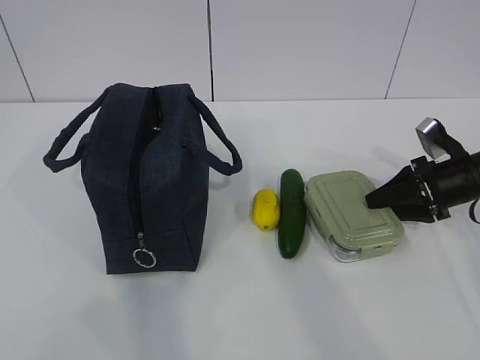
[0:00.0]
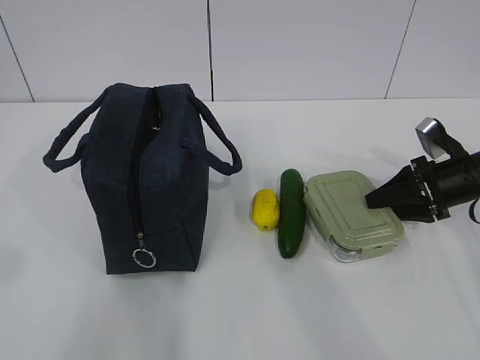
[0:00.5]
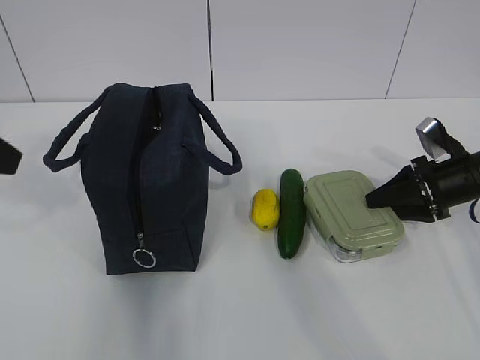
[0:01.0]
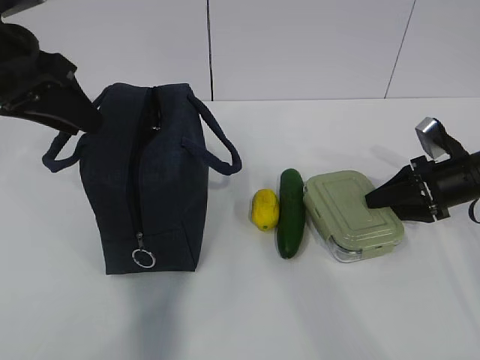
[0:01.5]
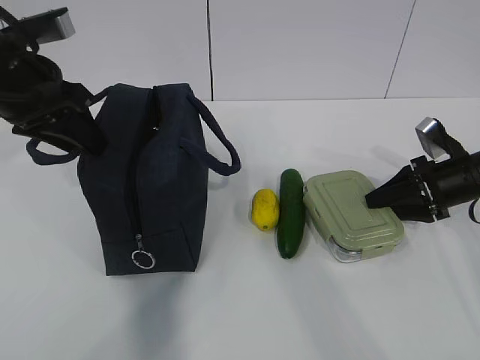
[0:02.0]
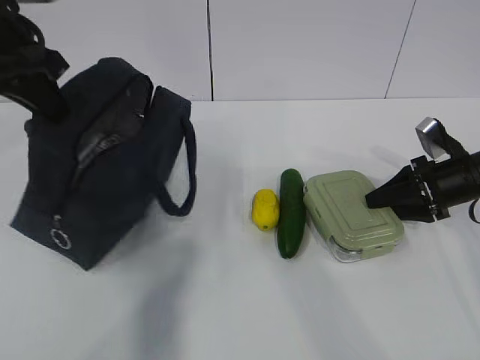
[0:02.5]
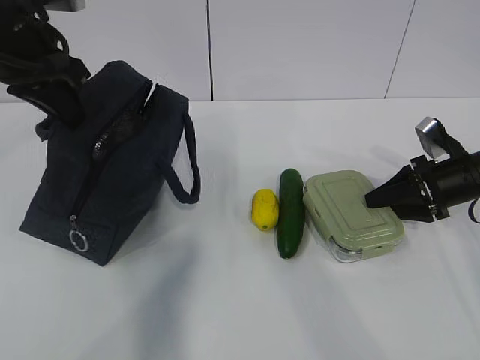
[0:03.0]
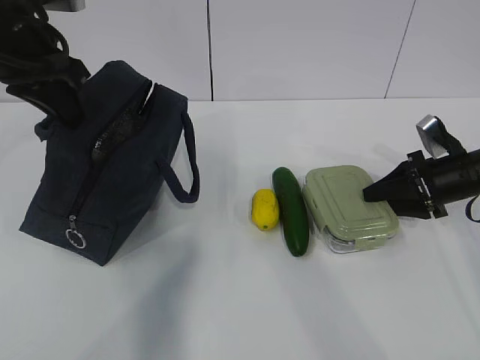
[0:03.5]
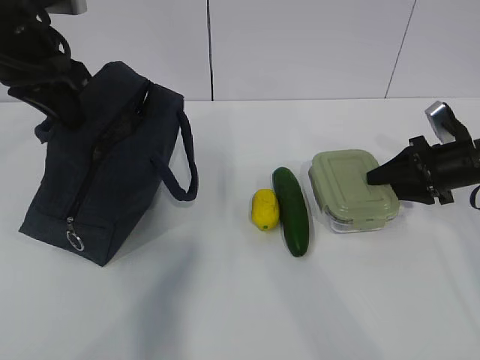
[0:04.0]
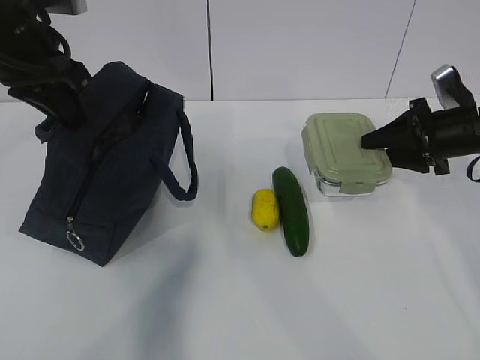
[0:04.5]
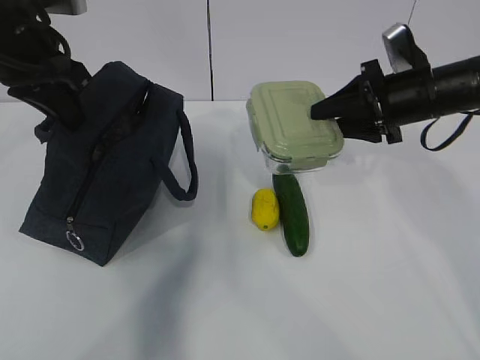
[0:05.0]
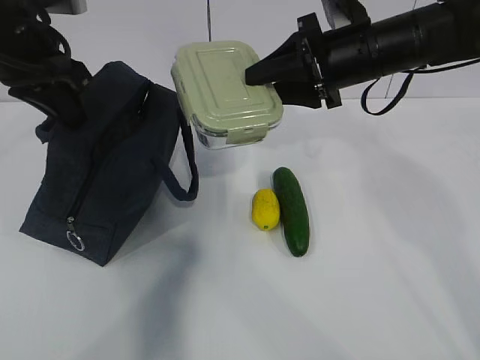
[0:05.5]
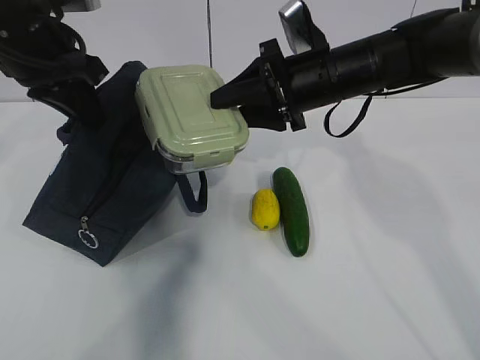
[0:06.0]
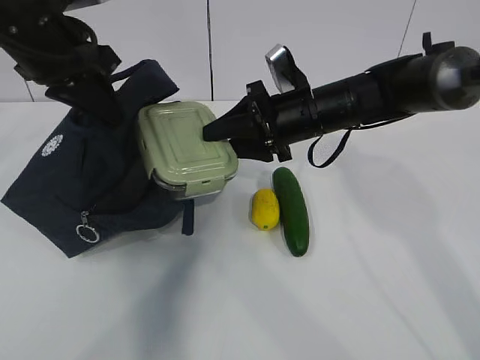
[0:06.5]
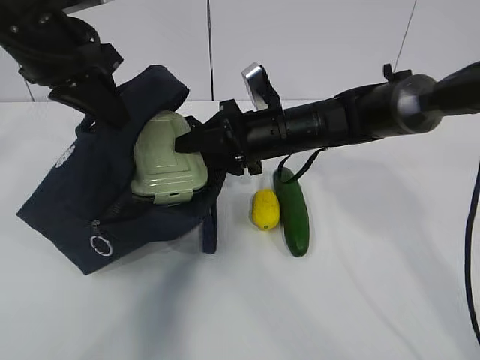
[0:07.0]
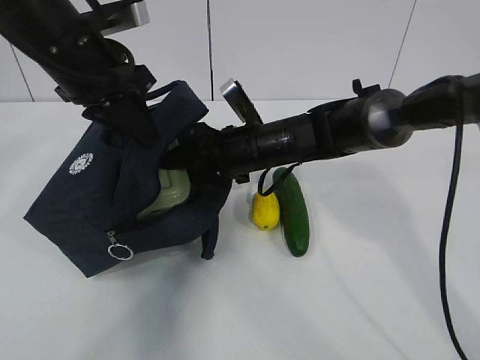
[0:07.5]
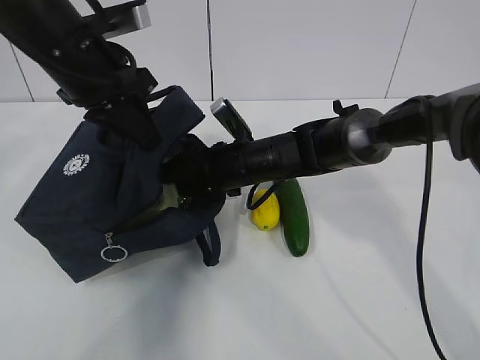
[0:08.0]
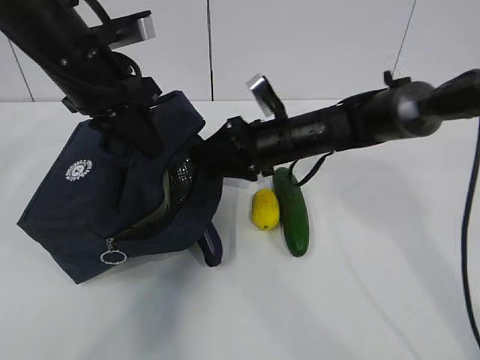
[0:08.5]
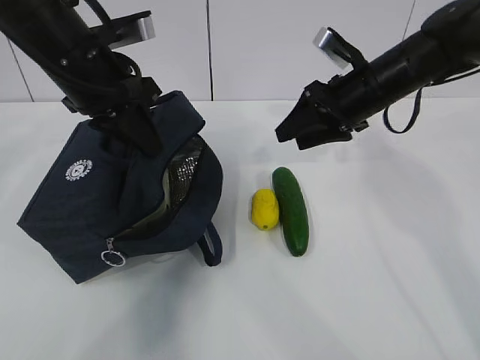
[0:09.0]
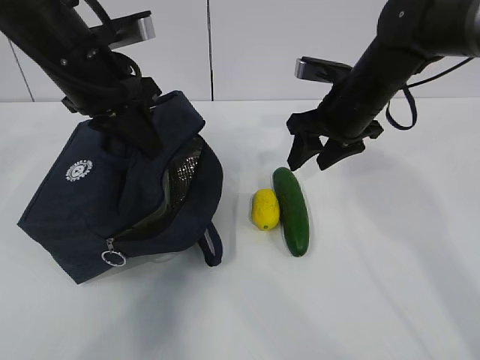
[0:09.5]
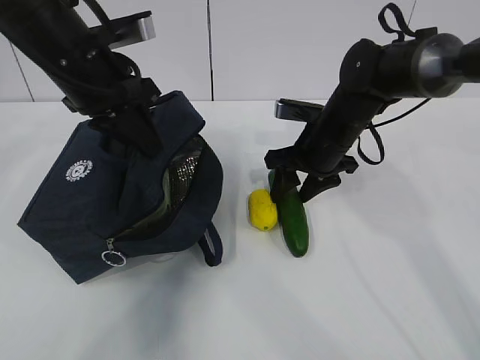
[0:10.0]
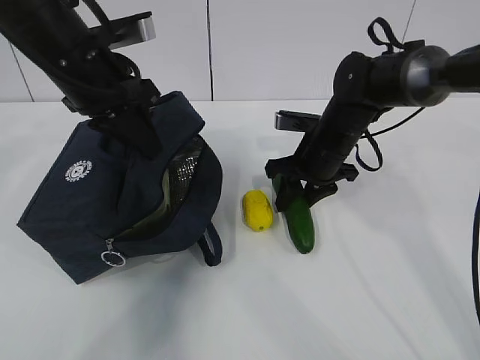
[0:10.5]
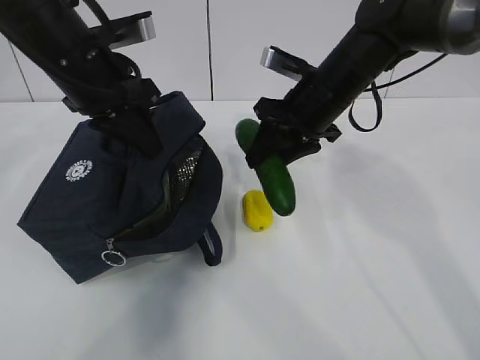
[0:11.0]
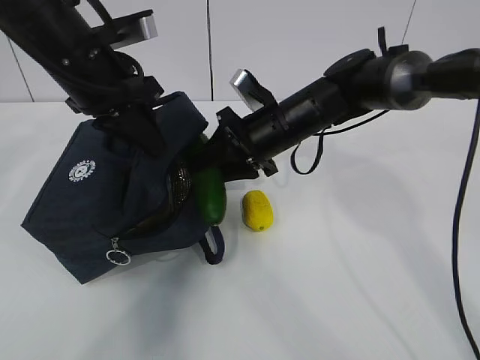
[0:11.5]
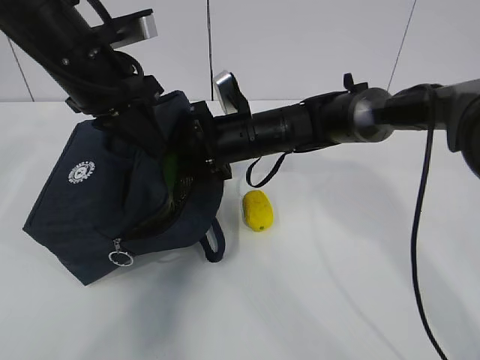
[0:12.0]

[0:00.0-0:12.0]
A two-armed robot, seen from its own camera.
Step, 0:02.0 to 0:03.0: Grab the lunch bag with your left hand.
Step, 0:03.5 to 0:05.0: Place it into the bag with your right hand.
Step, 0:05.5 to 0:06.5: Grab the cucumber with your right hand.
Step, 0:07.5 to 0:08.5: Place it into the bag with your right hand.
Step, 0:09.0 to 0:10.5: Grab the lemon with your right hand.
0:00.0 to 0:02.0: The left gripper shifts about 35 cm forward.
0:02.0 to 0:04.0: The left gripper closes its fingers.
0:04.0 to 0:06.0: The right gripper heads to the left and upward, covering some 25 cm.
0:06.0 to 0:08.0: The right gripper travels downward and to the left by about 15 cm.
0:08.0 to 0:10.0: The right gripper is displaced to the right by about 10 cm.
0:10.0 to 0:12.0: The right gripper moves to the left, about 10 cm.

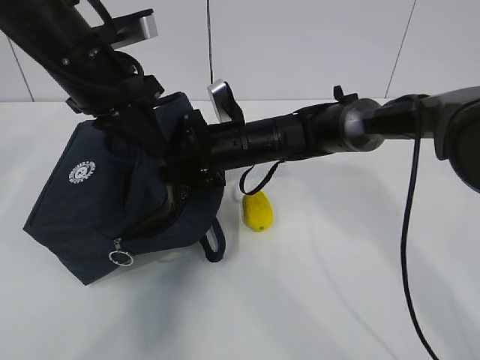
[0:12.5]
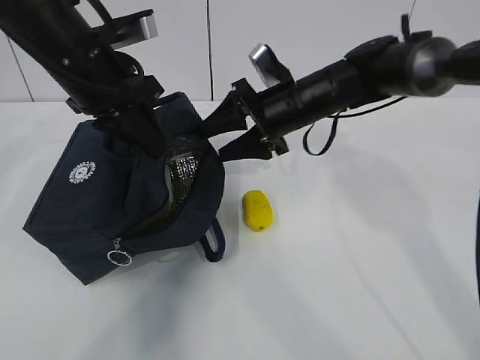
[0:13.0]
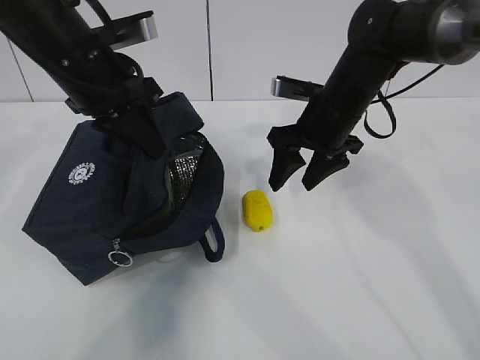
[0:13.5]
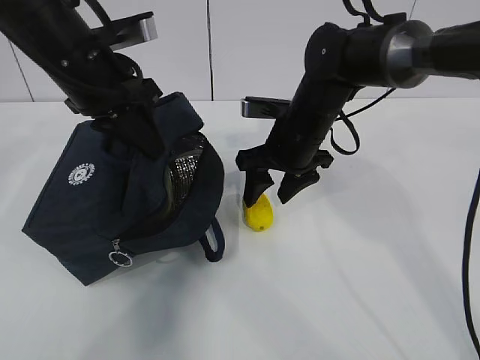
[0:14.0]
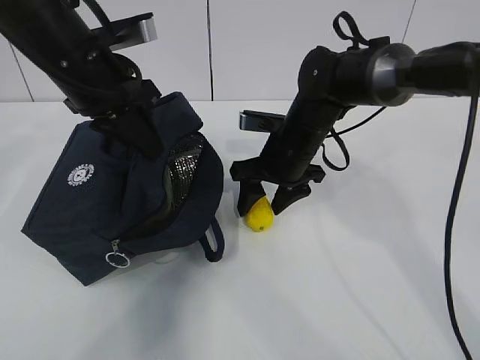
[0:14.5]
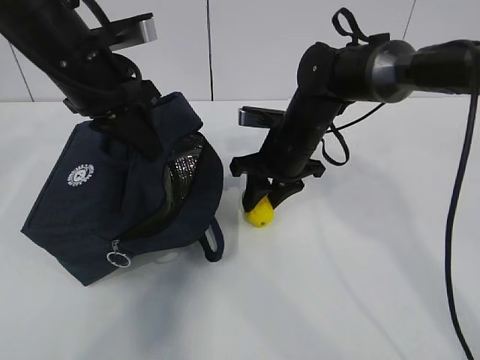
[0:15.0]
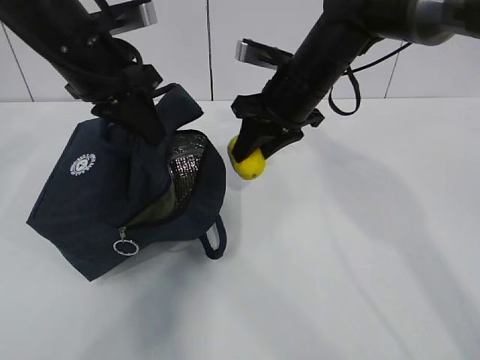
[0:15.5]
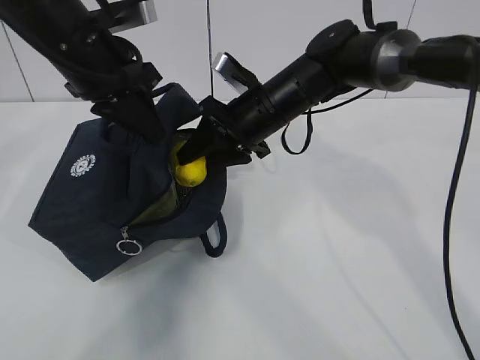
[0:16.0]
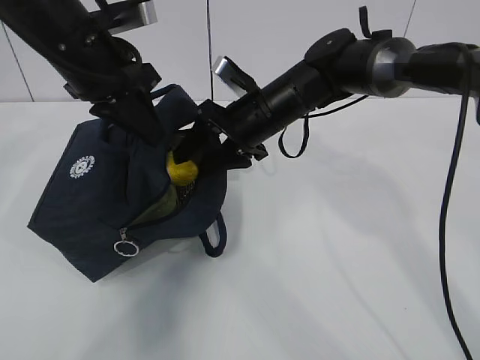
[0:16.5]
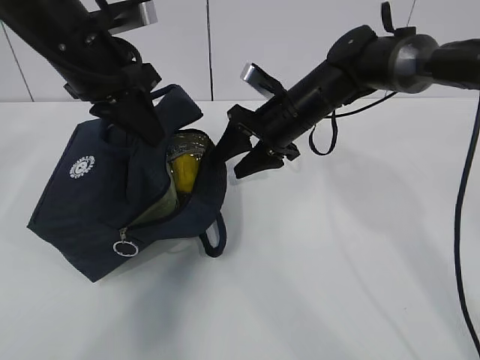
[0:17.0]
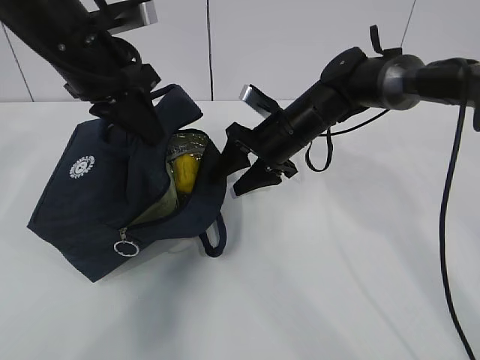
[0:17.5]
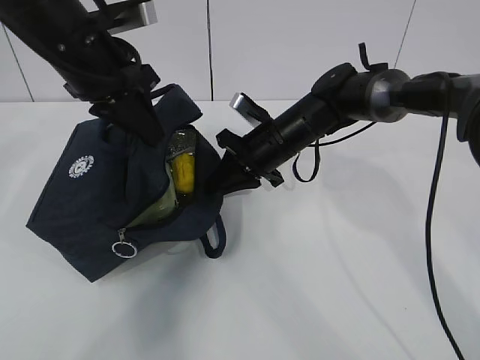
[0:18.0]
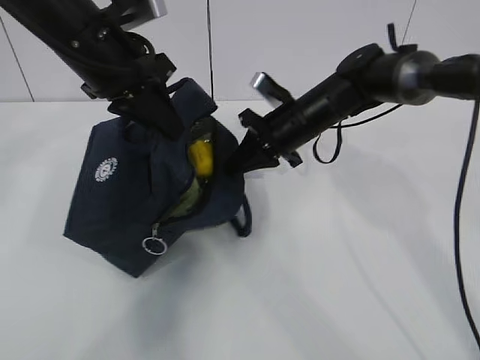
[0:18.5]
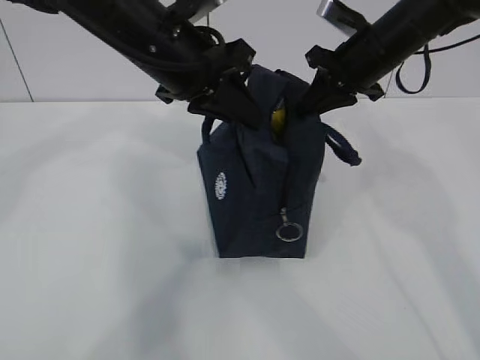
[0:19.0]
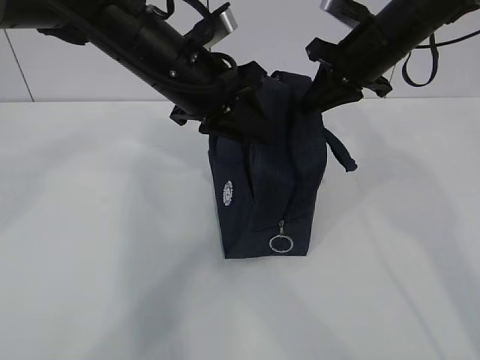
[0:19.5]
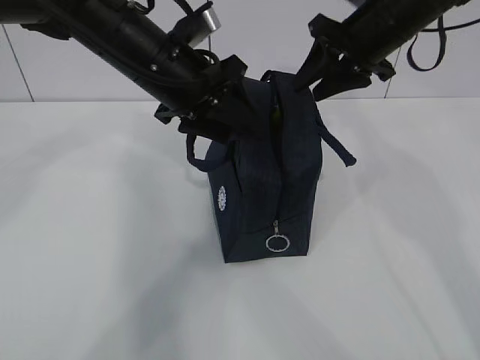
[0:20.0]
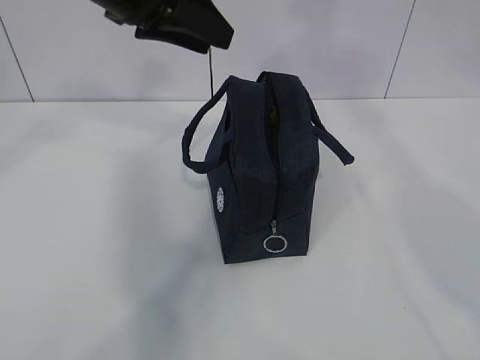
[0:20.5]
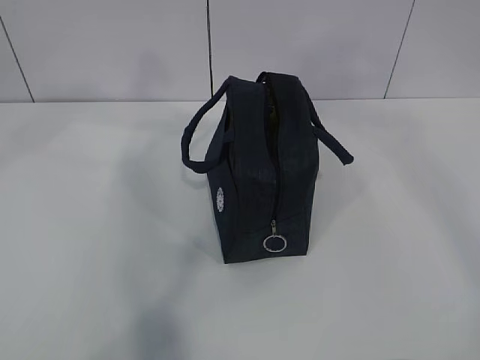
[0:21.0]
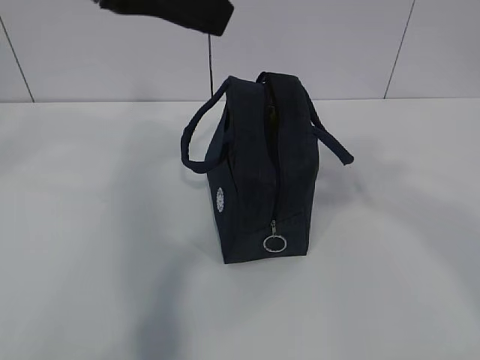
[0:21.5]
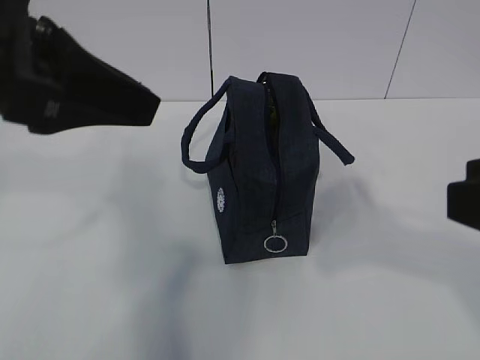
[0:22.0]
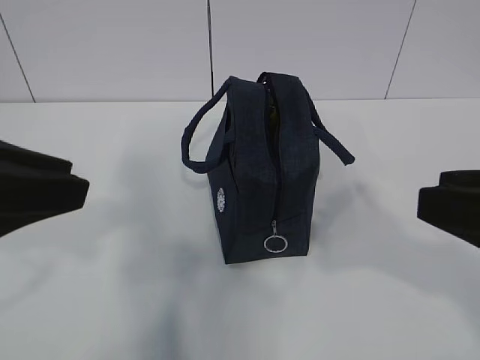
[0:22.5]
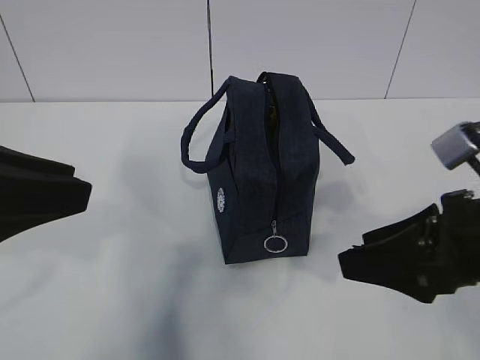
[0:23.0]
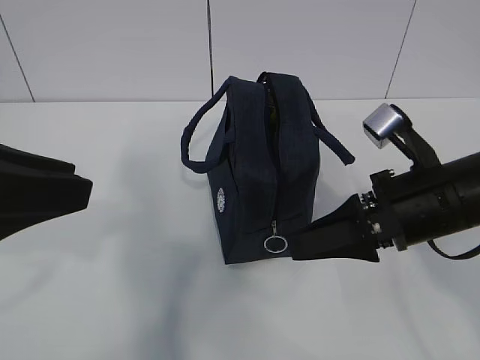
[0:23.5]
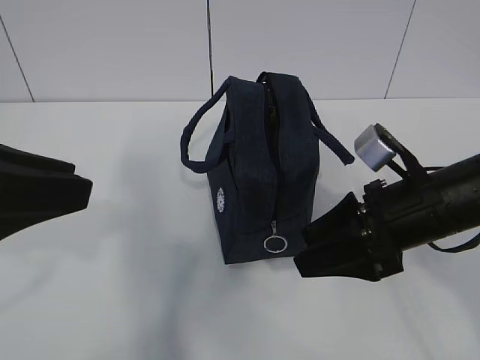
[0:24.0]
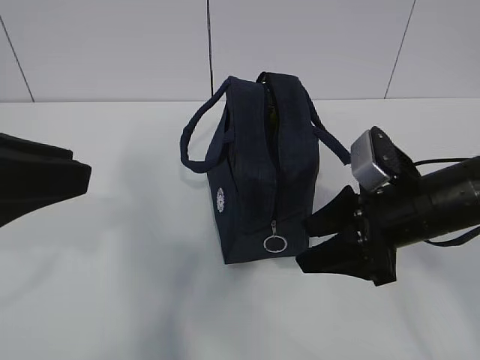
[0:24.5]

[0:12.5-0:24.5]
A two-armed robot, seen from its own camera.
Step, 0:12.5 to 0:13.0: Grab the lunch bag with your right hand.
Step, 0:13.5 to 0:15.0: Stand the lunch bag upright with your right hand.
0:12.5 to 0:14.5: The right gripper shifts some 5 cm to the right.
0:16.5 to 0:18.5: The right gripper shifts roughly 5 cm to the right, and closes its fingers.
0:18.5 to 0:20.5: The right gripper goes some 35 cm upward, and opens. Meanwhile the left gripper is displaced upward by about 5 cm, and opens up.
0:20.5 to 0:22.5: The left gripper moves backward and to the left, some 20 cm. Meanwhile the right gripper travels backward and downward by about 30 cm.
0:22.5 to 0:24.5: The right gripper travels forward and downward by some 20 cm.

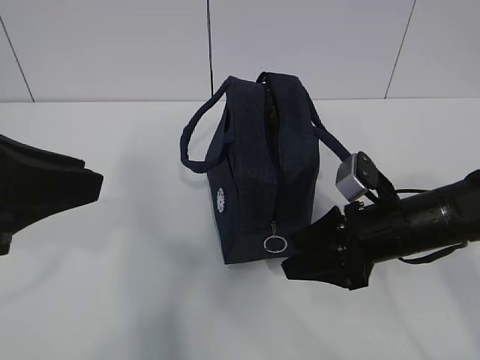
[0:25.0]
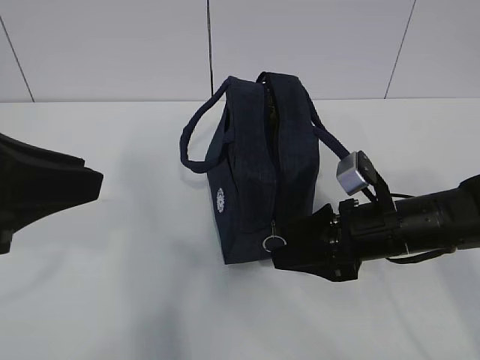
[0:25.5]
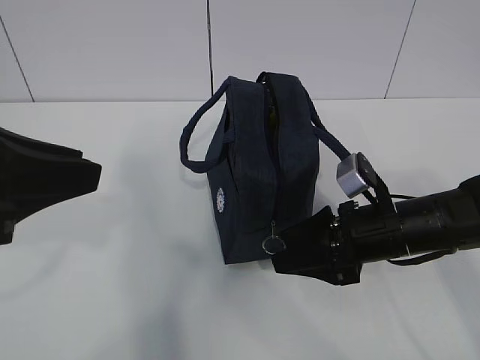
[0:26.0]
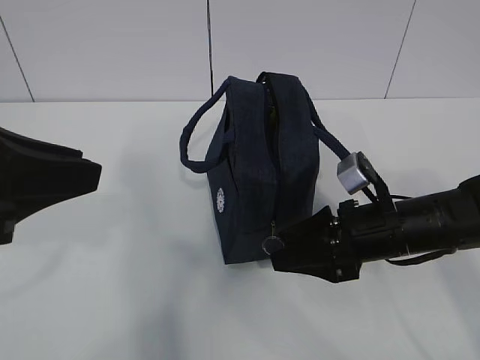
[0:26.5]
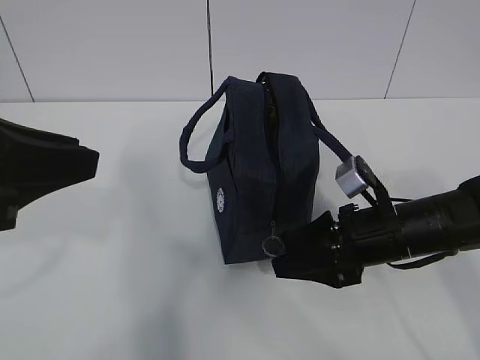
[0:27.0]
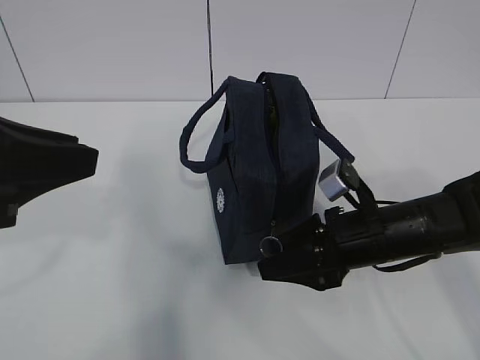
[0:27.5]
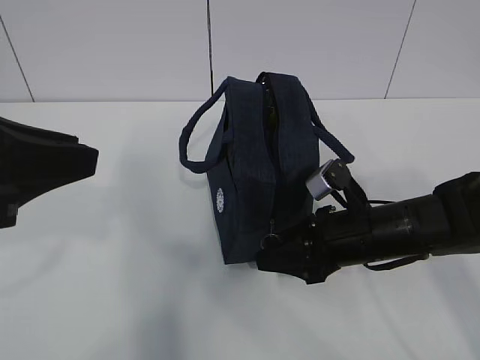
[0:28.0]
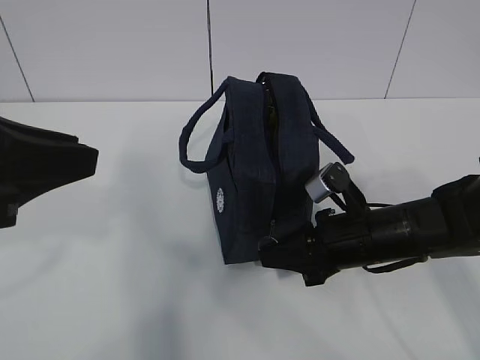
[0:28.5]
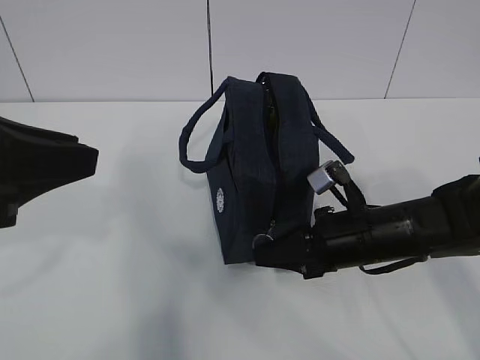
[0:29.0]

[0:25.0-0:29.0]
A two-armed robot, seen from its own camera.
0:25.0 to 0:27.0: There are only small adjustments of the grippers.
0:27.0 to 0:29.0: The right gripper closes its fingers.
